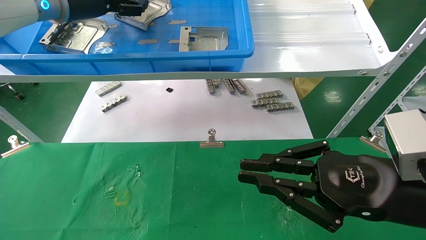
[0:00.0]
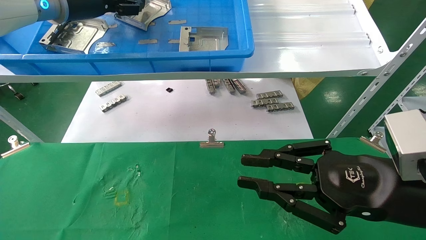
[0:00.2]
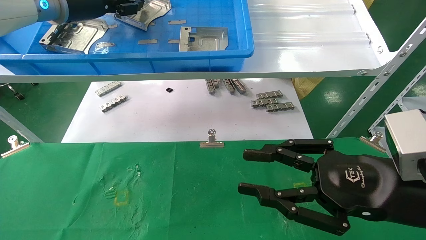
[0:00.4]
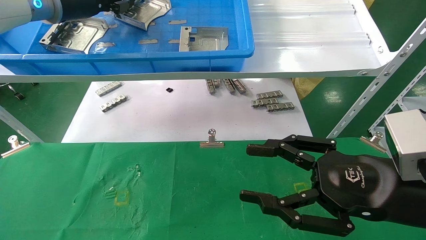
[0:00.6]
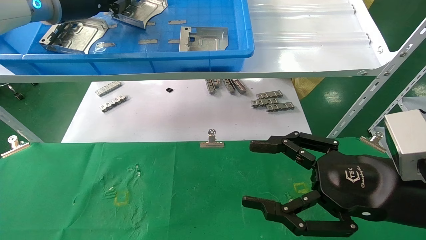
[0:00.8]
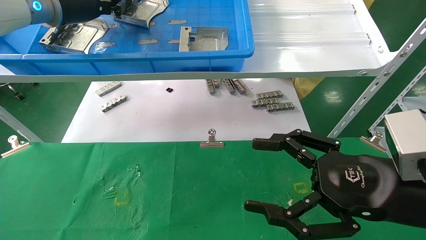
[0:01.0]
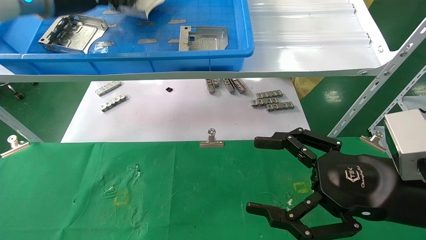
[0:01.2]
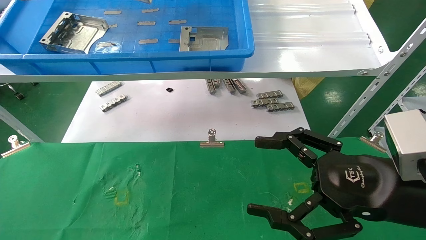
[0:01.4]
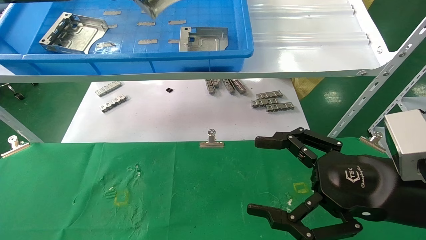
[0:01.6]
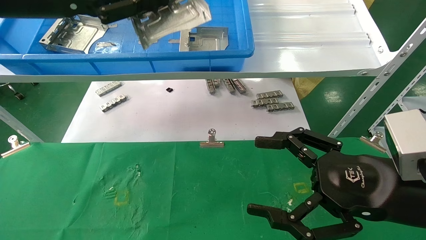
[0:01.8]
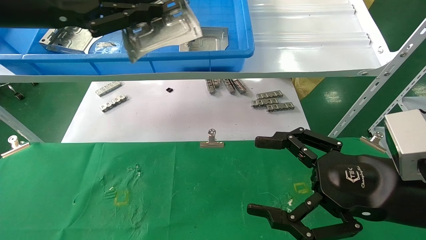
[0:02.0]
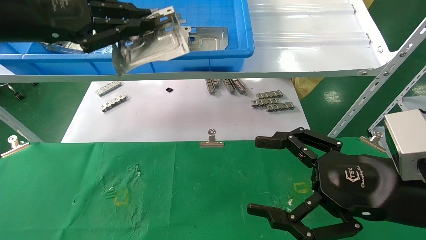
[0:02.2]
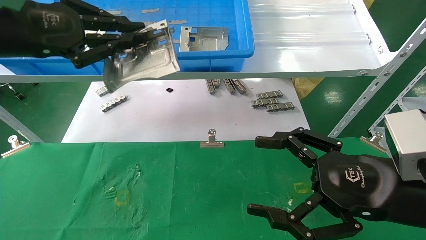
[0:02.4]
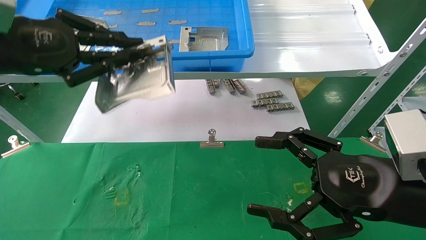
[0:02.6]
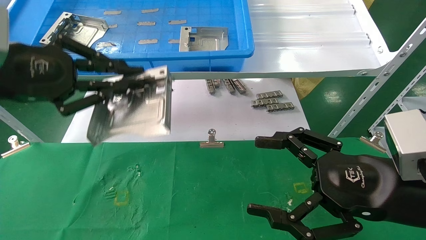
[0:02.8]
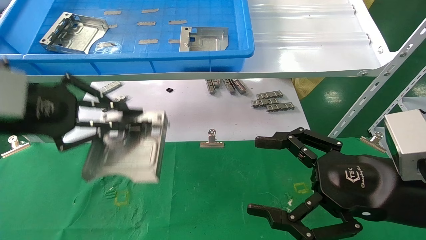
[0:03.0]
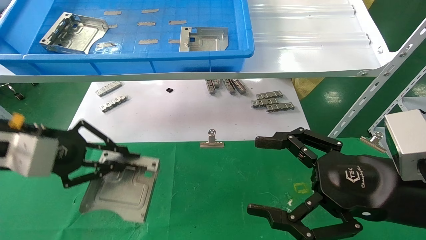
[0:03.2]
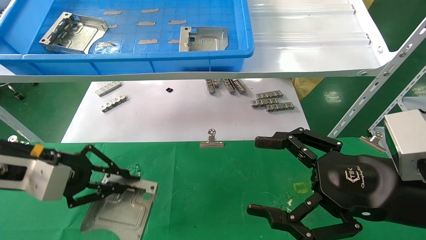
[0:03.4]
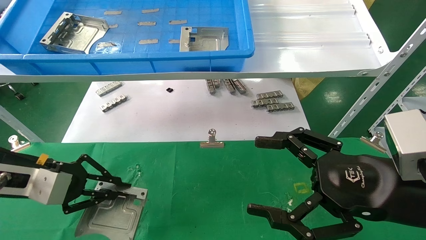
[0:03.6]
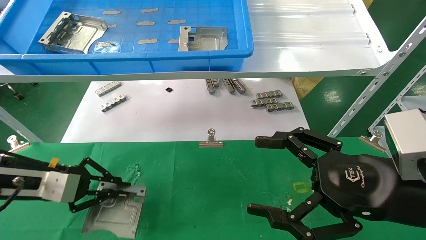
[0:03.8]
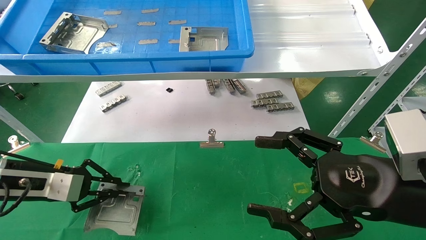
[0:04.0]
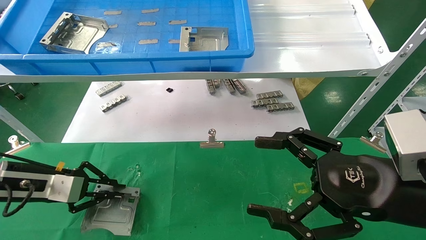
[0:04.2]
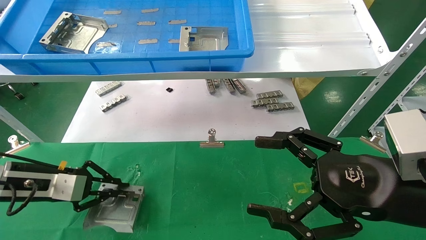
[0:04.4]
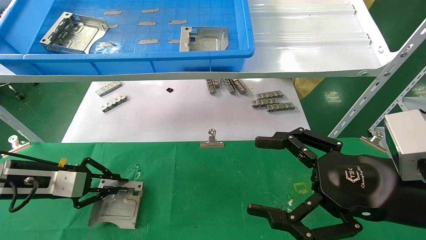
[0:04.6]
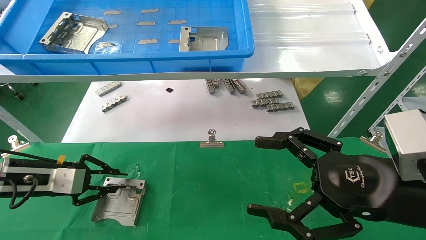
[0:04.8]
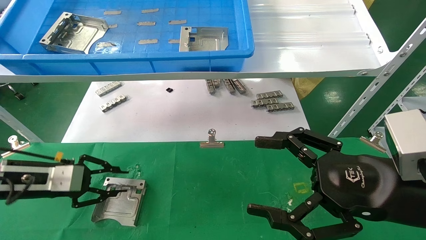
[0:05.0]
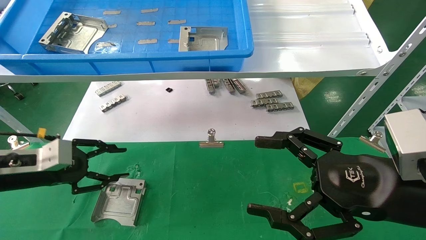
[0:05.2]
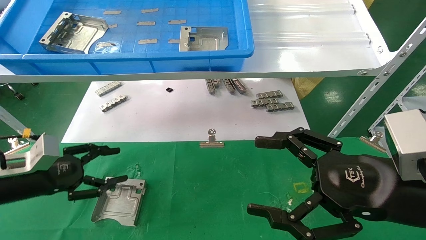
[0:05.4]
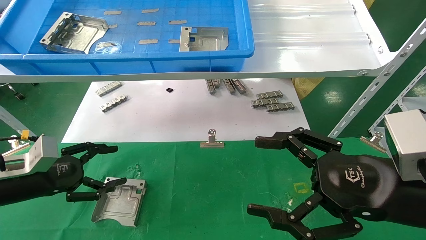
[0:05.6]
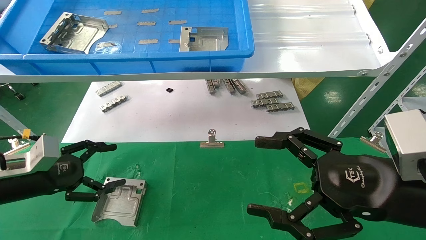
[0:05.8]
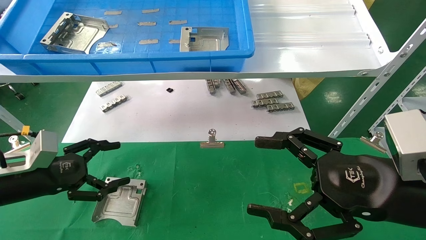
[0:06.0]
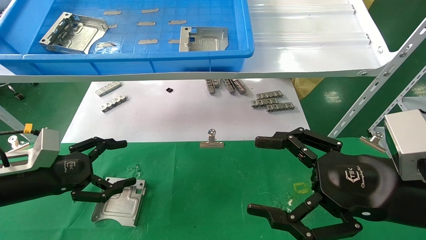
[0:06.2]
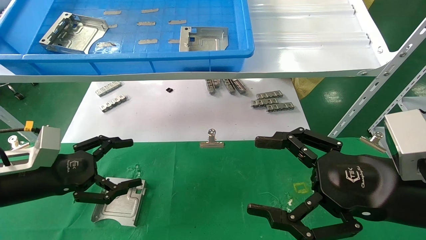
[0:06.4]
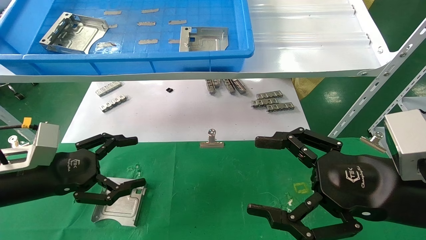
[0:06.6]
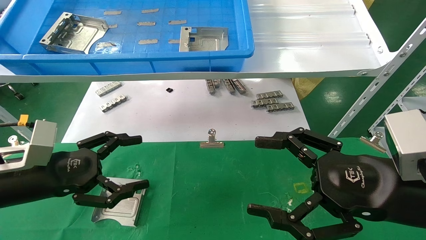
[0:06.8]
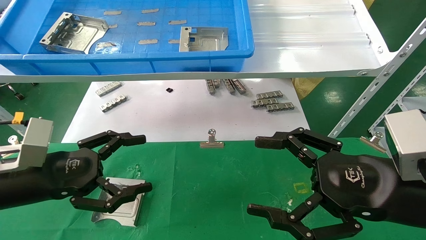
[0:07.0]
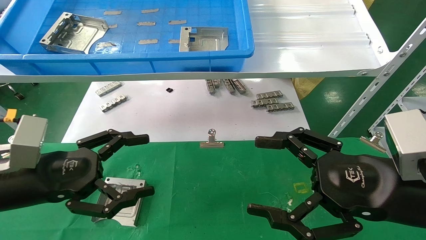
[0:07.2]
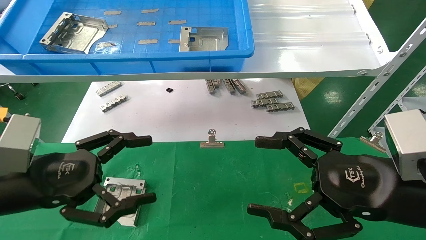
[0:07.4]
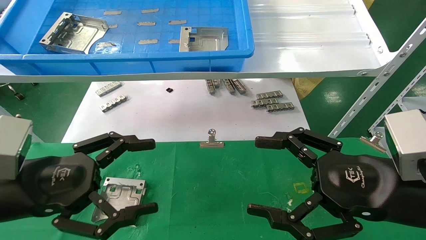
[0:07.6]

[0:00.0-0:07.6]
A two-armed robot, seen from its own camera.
Task of the whole recording: use the mechanical arm to pick up the parts and place them on the table.
Step, 0:01.2 to 0:05.0: Place the hard drive bracket into the box.
0:00.0 to 0:01.6: The left gripper moves backward, roughly 10 cm, and closes. The right gripper opens.
0:01.6 to 0:03.0: The left gripper shifts approximately 15 cm downward and backward.
0:03.0 to 0:04.6: The left gripper moves downward and forward, some 20 cm.
0:04.6 to 0:06.0: The left gripper opens.
0:06.0 to 0:07.6: The left gripper moves backward, to the right and upward, approximately 15 cm.
